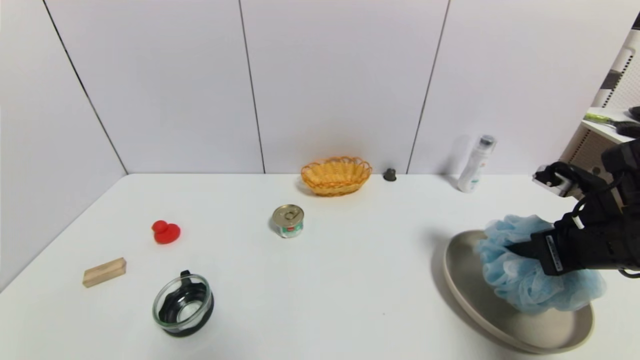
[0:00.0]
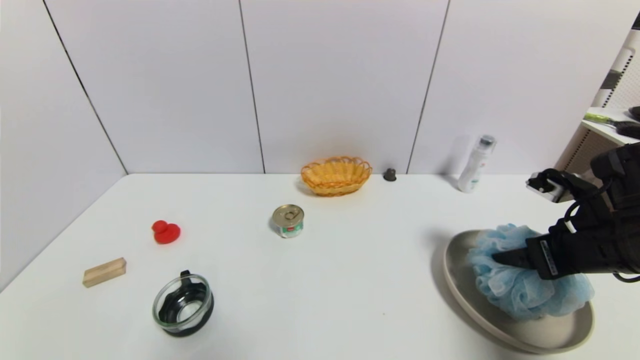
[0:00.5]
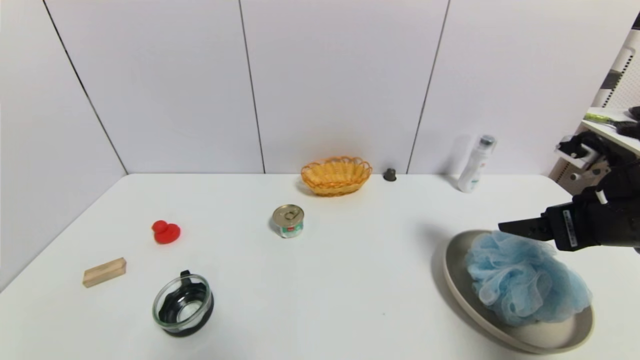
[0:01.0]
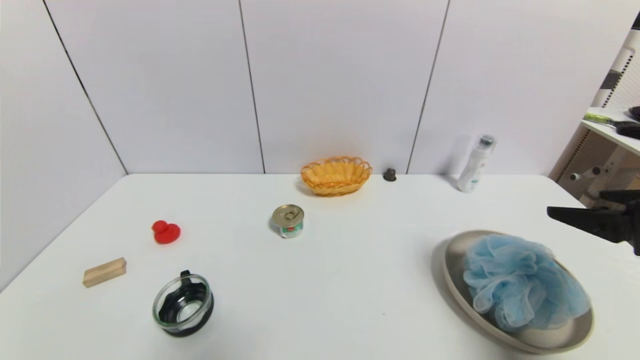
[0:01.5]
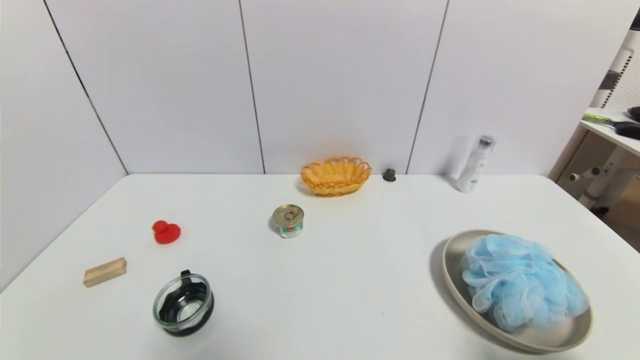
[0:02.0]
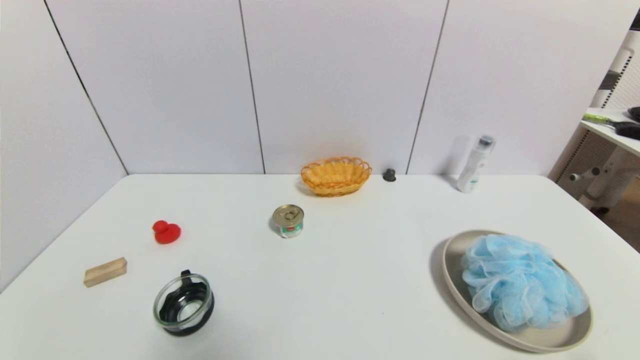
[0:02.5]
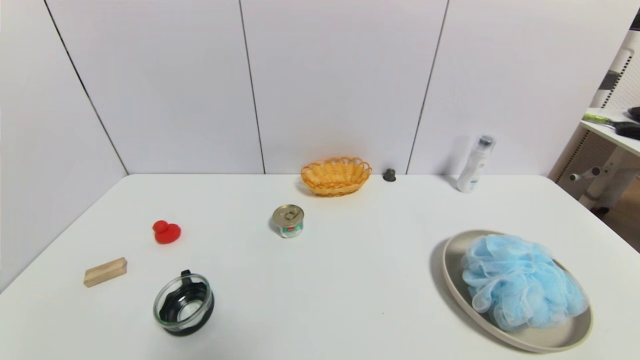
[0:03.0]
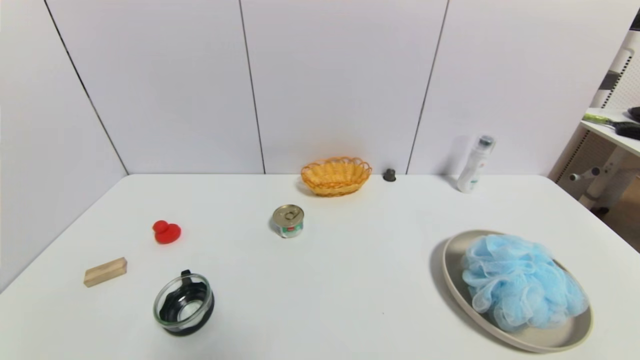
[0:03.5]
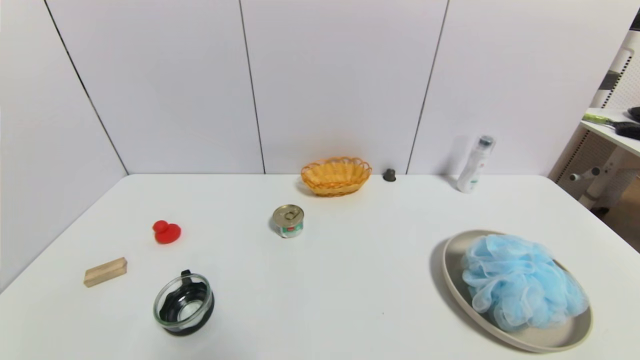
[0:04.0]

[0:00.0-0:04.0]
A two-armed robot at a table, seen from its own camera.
Task of the whole recording: use a gripper to pick the target object and place on the brown plate.
0:00.0 to 0:02.0: The right gripper shifts about 20 cm backward, and opens its fingers.
0:02.0 to 0:04.0: The right gripper goes about 15 cm downward.

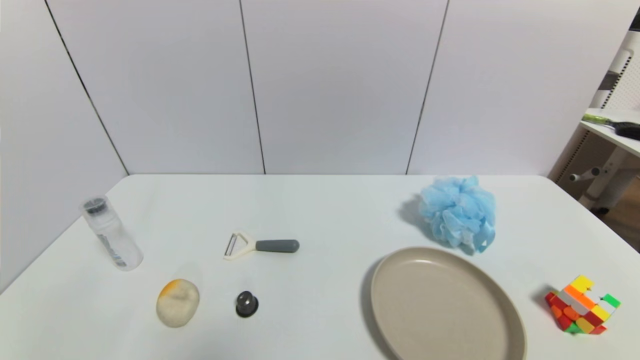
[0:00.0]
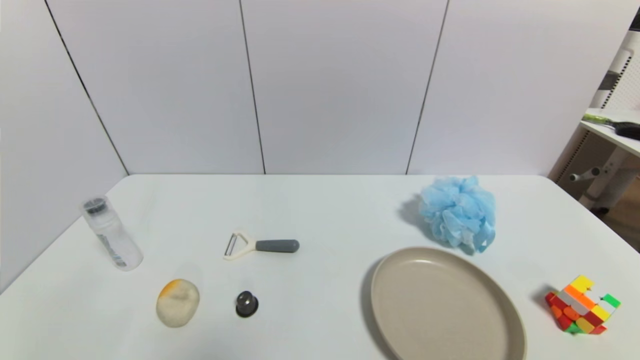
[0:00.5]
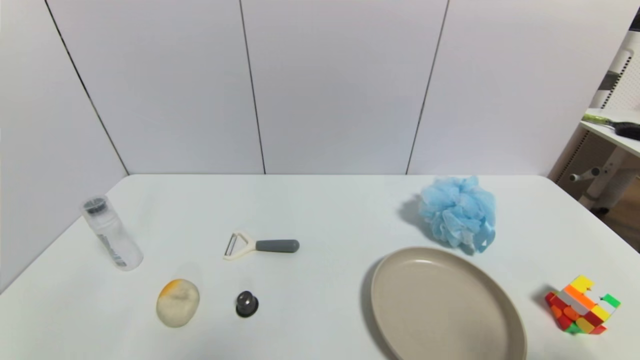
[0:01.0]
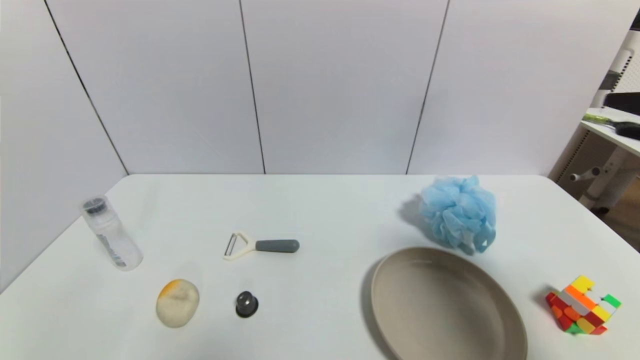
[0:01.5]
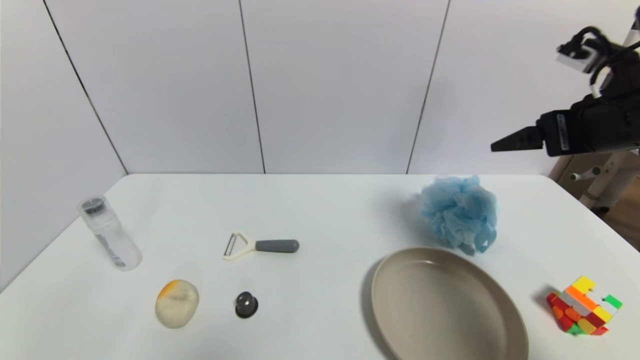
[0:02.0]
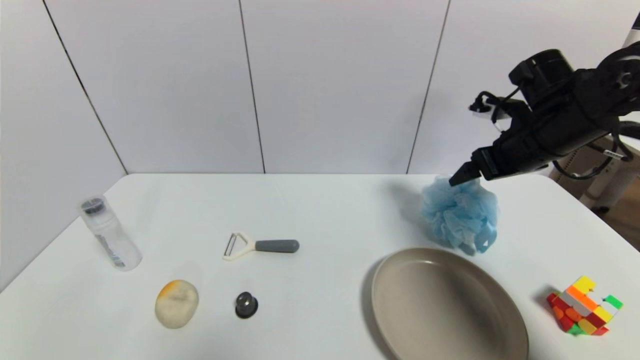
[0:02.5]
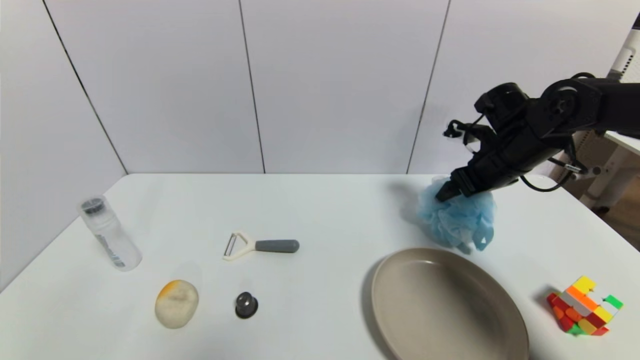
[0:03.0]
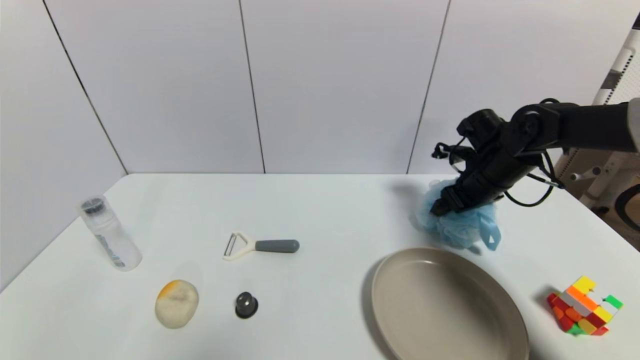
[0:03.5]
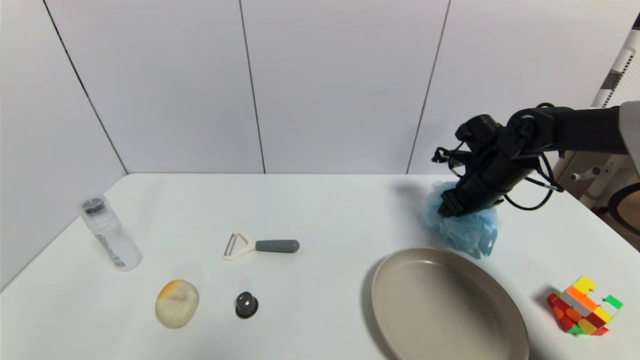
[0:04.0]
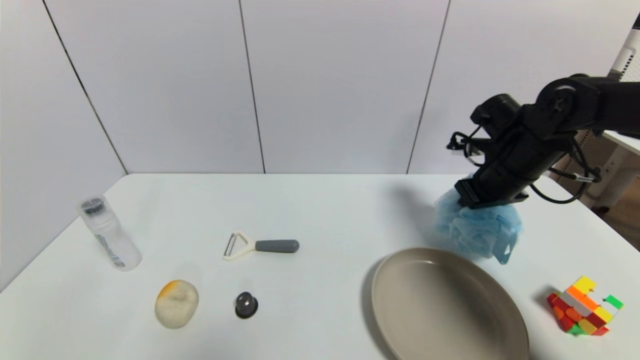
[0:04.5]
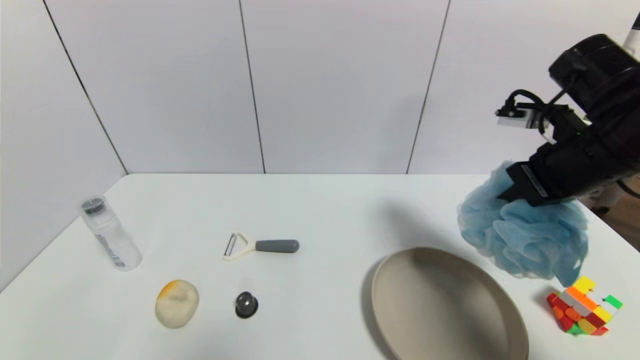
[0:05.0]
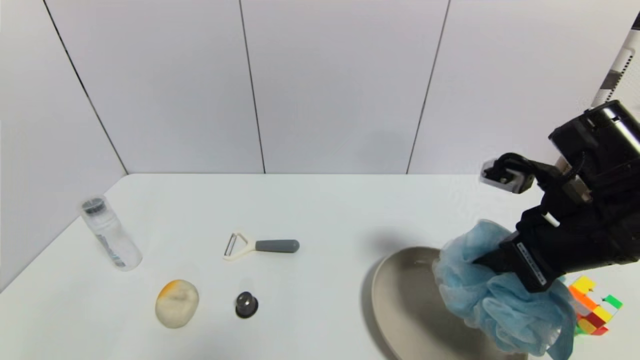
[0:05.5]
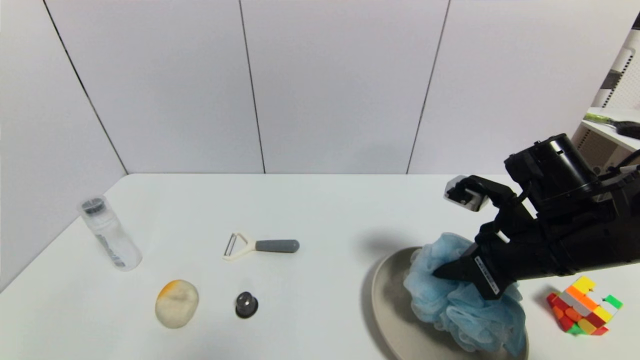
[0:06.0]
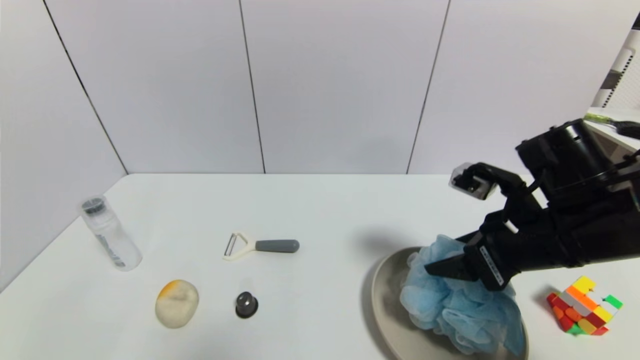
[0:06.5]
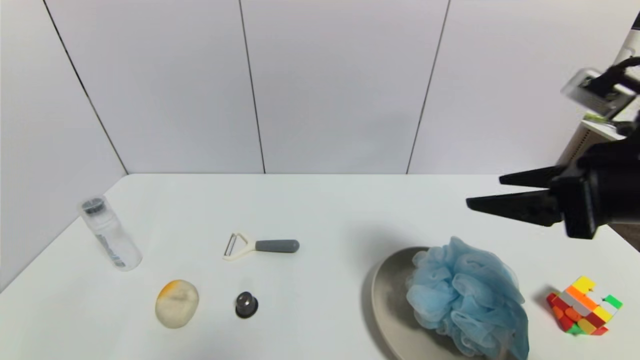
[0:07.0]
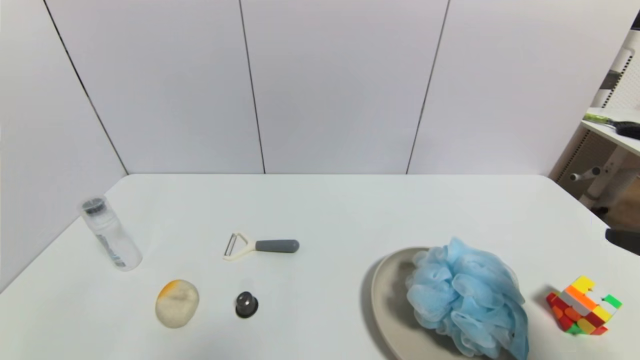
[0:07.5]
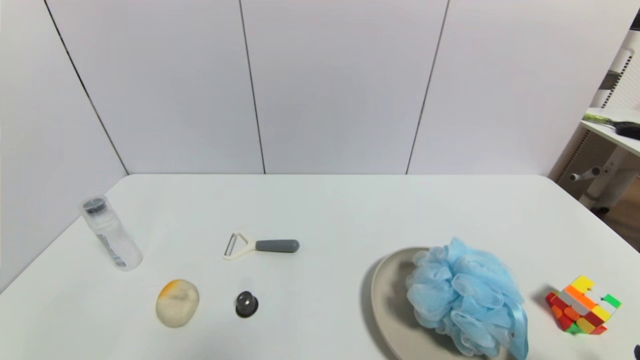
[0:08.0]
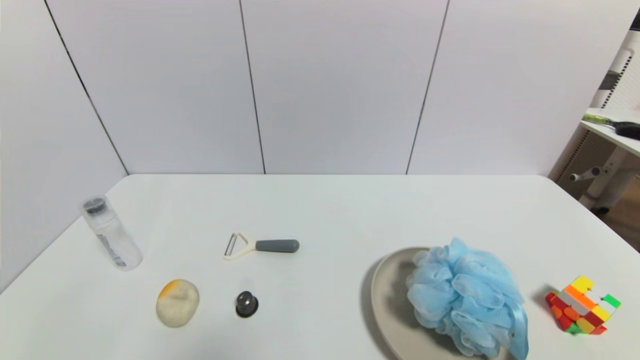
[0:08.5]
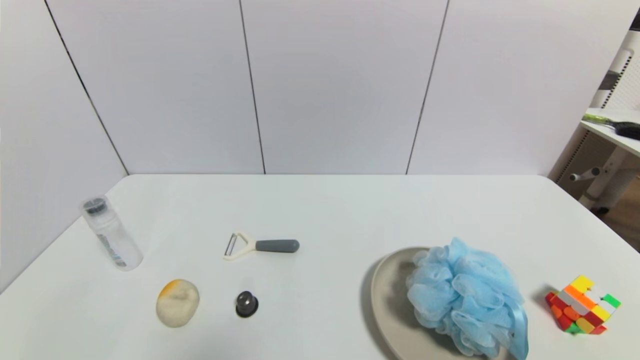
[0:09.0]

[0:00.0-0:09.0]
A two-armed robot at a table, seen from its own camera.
Task of the whole recording: use a gripper to pick the target object and place on the brown plate.
Step, 0:00.0 to 0:04.0: Grasp the shower sphere with the right gripper.
Step, 0:04.5 to 0:06.5: Place the shower sphere on the brown plate with the right gripper.
0:00.0 to 0:02.0: The right gripper goes some 35 cm forward and upward.
0:02.0 to 0:04.5: The right gripper is displaced forward and downward by some 15 cm, and closes.
0:04.5 to 0:07.0: The right gripper is displaced backward and upward by about 20 cm, and opens up.
0:07.0 to 0:09.0: The right gripper is displaced downward and backward by roughly 30 cm.
